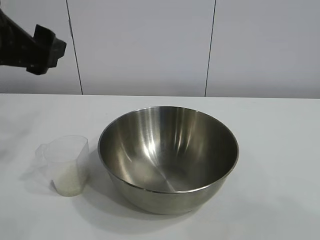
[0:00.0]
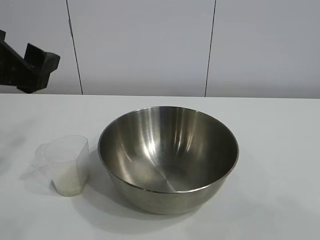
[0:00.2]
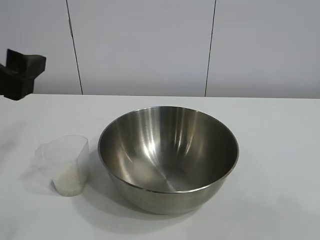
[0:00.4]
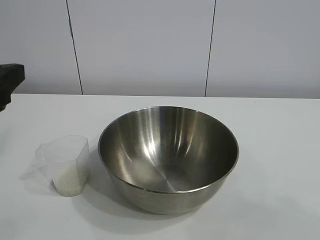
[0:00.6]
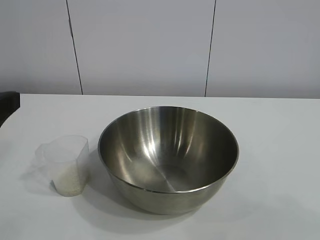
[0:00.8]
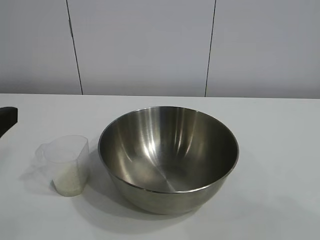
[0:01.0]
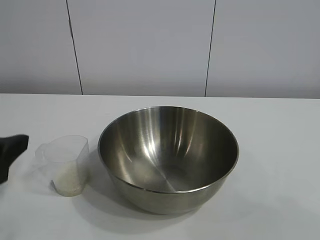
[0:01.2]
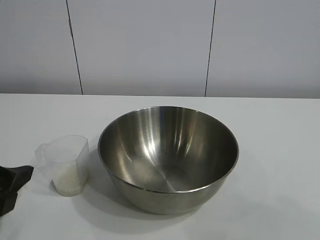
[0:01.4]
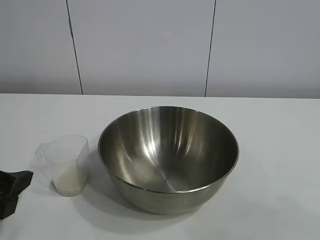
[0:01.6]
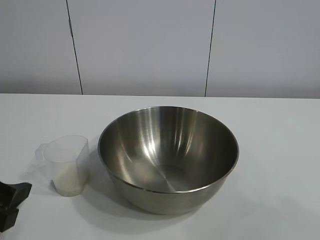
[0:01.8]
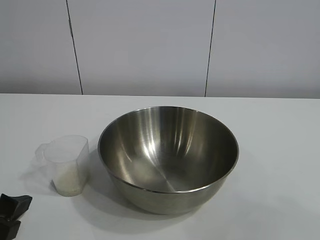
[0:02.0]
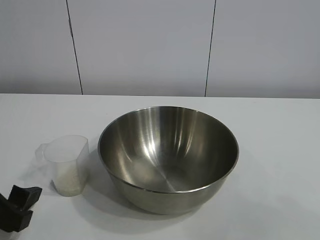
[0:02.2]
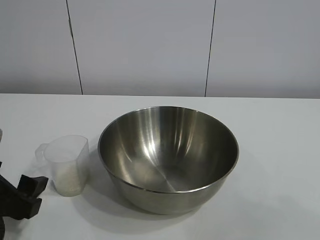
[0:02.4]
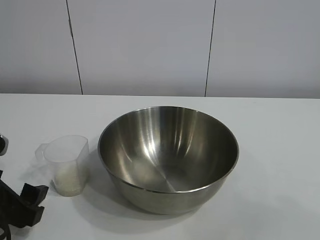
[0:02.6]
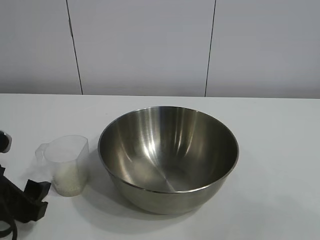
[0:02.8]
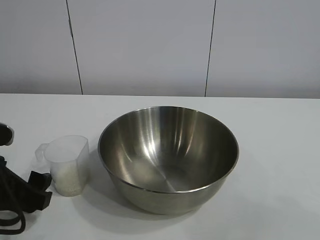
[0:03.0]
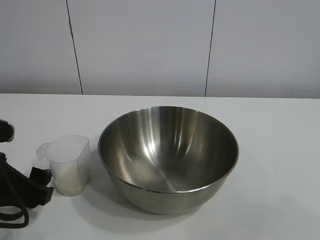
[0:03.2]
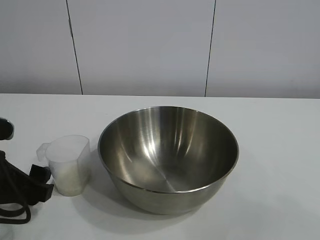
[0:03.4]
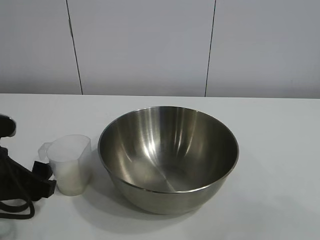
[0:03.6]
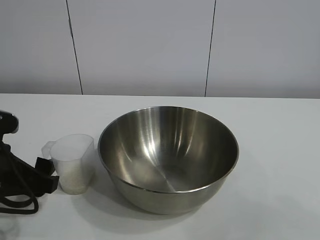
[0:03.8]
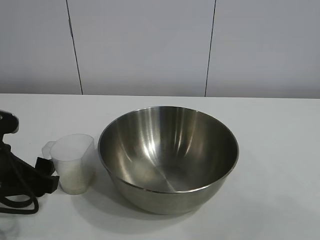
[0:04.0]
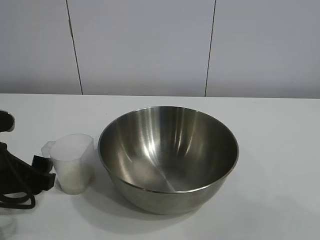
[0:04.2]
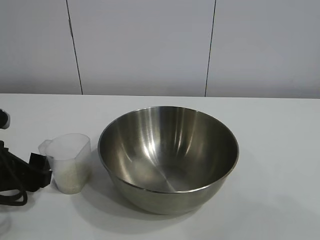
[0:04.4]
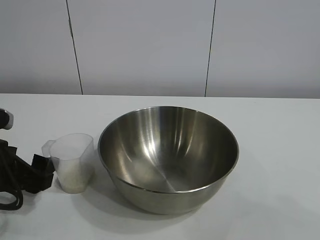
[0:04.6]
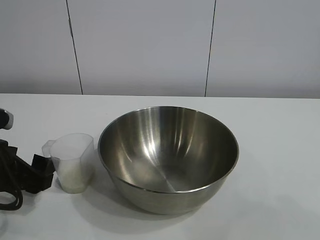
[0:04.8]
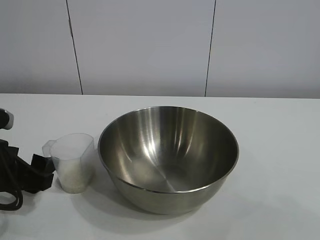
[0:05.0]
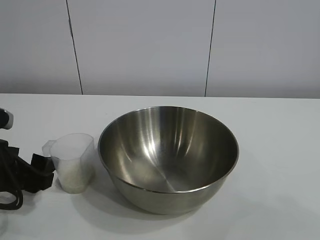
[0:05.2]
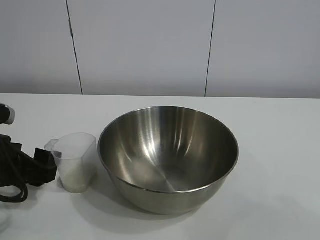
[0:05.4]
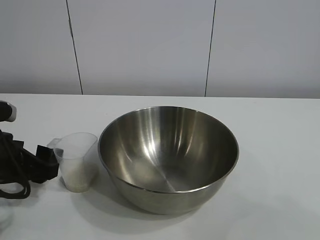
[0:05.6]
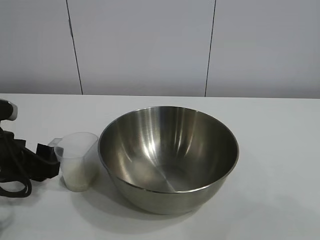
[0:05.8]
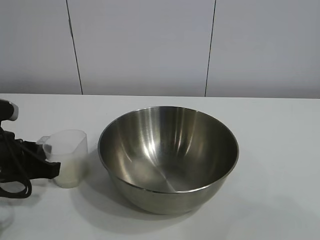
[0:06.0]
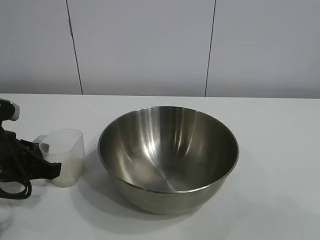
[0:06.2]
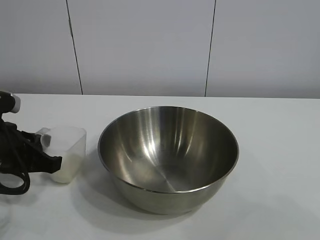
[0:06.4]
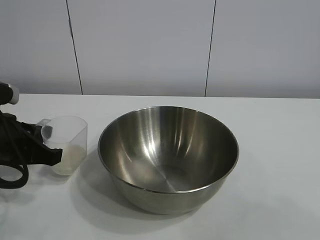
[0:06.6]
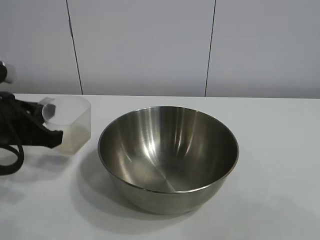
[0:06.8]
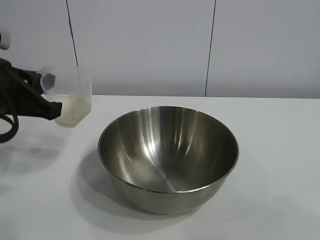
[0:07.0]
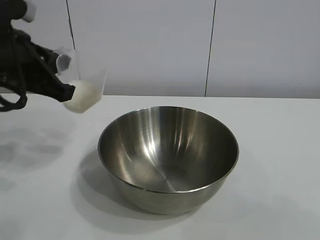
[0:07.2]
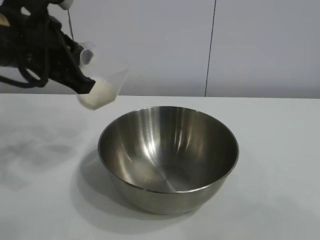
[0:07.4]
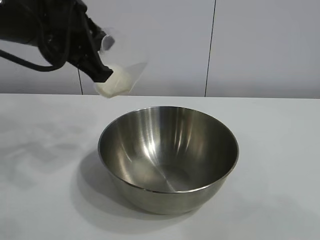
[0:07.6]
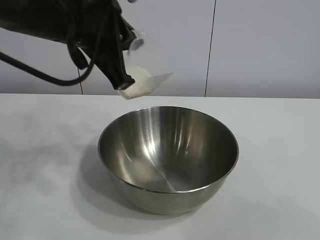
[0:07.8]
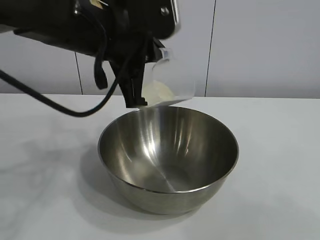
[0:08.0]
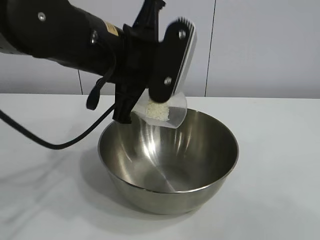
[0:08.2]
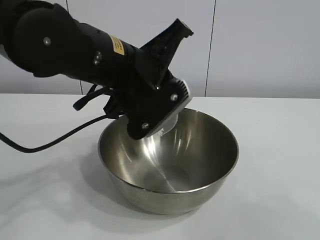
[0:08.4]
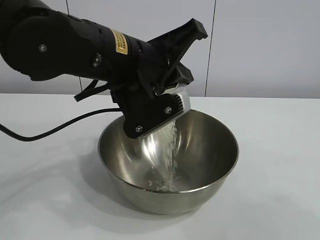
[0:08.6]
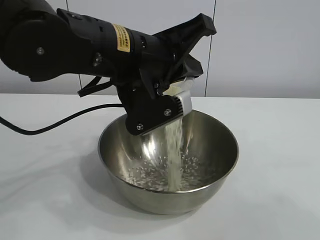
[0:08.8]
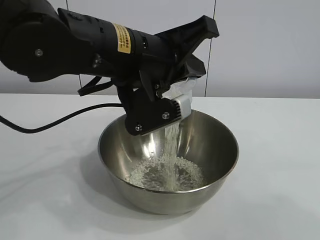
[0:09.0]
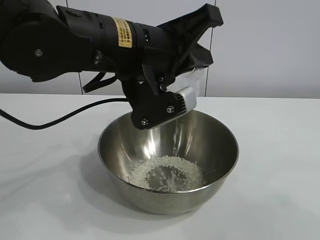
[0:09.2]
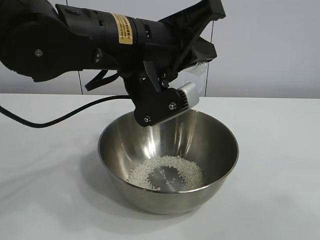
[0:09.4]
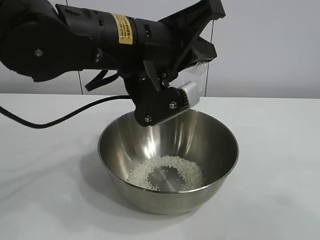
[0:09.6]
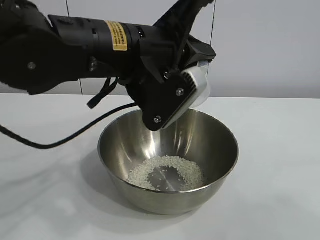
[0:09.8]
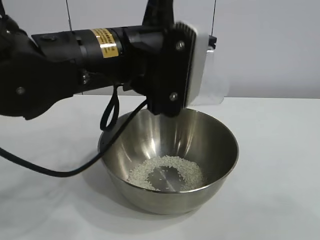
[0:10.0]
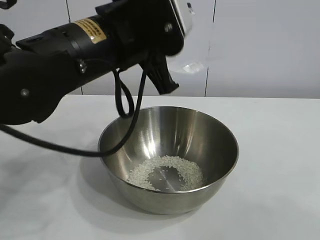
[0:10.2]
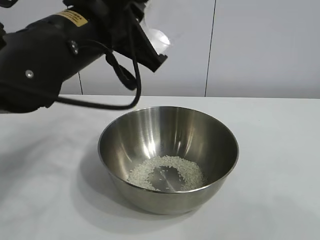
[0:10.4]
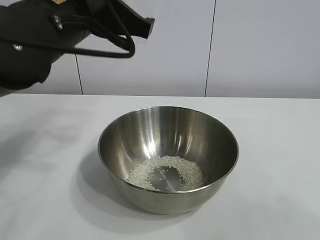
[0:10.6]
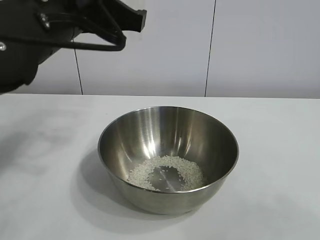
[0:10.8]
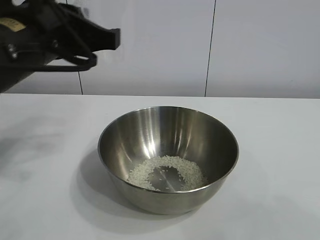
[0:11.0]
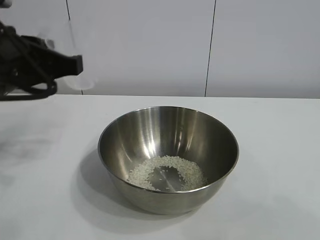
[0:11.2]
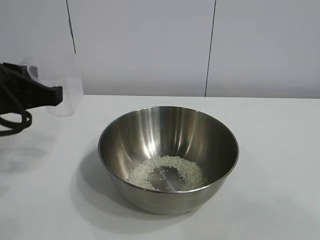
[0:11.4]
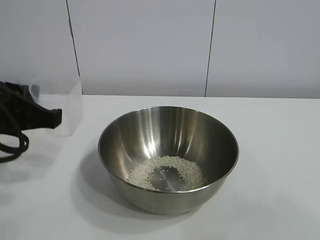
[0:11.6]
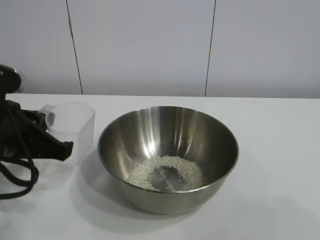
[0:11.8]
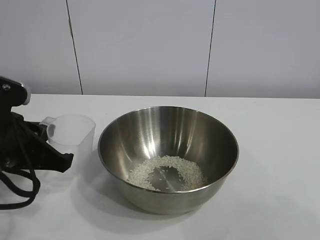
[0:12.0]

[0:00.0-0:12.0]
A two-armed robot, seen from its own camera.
Task of the whole recording: the right gripper grasp the rice container and place it in the center of the table, the left gripper grasp the rice scoop and pour the rice into the rice container.
Step, 0:00.0 to 0:06.2: Grasp the cup with rice in it with left gripper.
Step, 0:06.4 to 0:09.6: Pour the rice from the cup into the bowl with the left gripper.

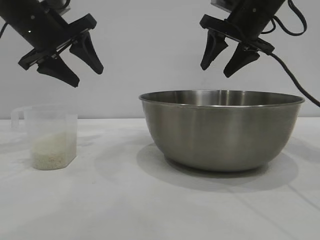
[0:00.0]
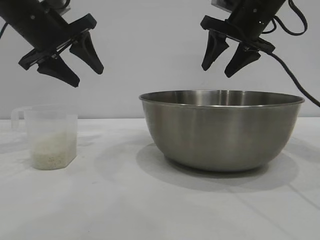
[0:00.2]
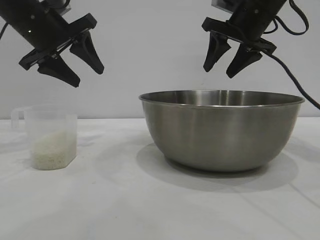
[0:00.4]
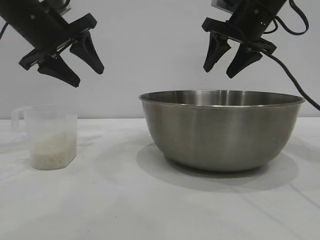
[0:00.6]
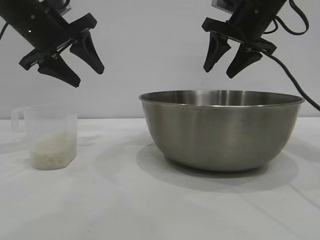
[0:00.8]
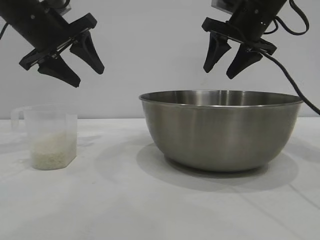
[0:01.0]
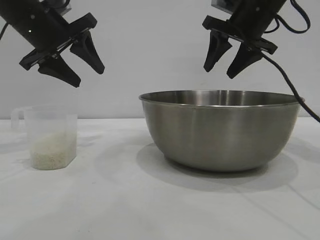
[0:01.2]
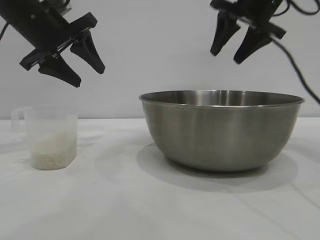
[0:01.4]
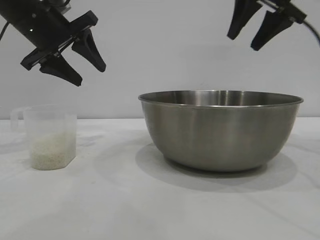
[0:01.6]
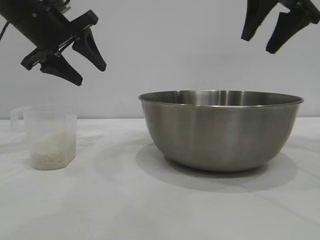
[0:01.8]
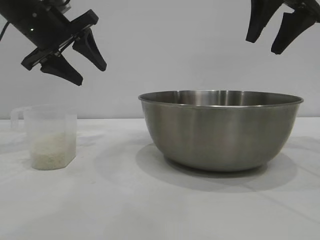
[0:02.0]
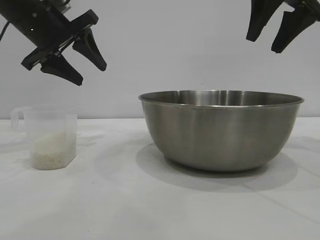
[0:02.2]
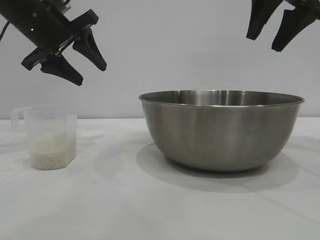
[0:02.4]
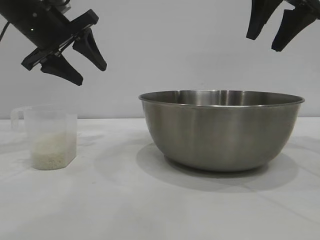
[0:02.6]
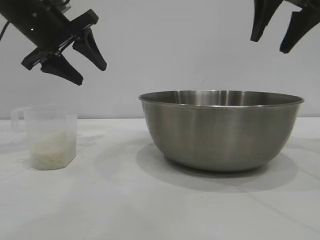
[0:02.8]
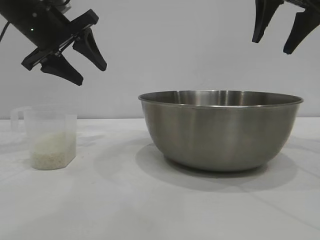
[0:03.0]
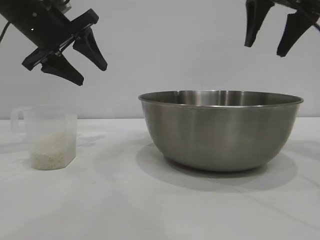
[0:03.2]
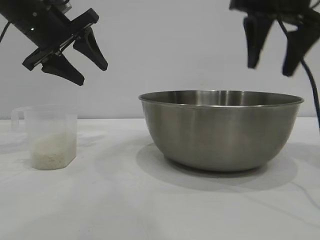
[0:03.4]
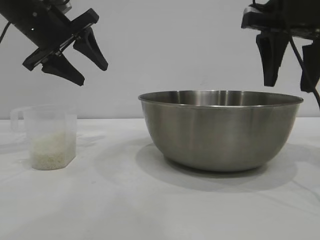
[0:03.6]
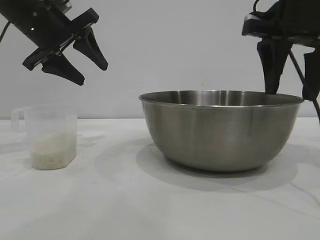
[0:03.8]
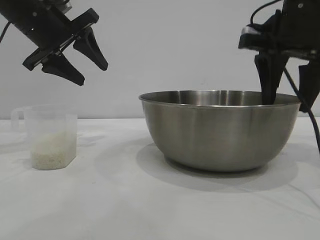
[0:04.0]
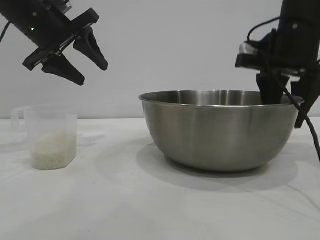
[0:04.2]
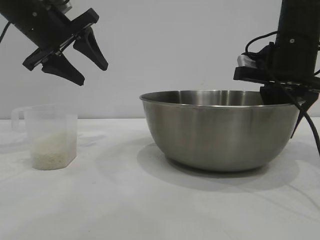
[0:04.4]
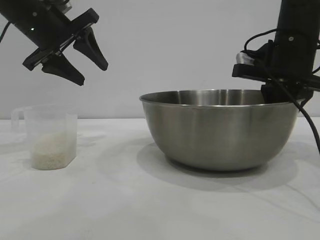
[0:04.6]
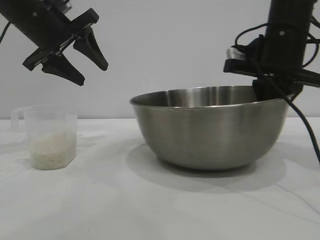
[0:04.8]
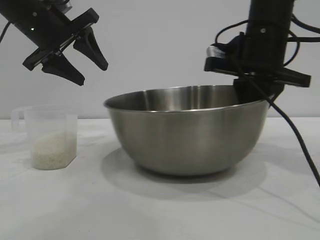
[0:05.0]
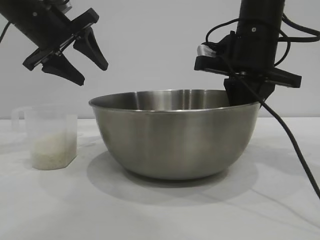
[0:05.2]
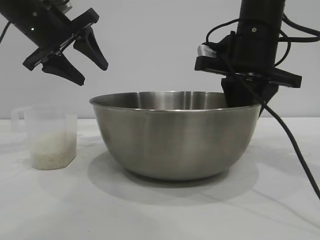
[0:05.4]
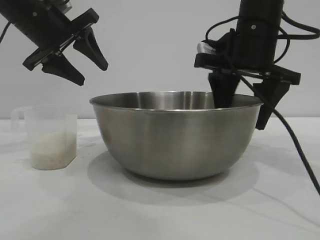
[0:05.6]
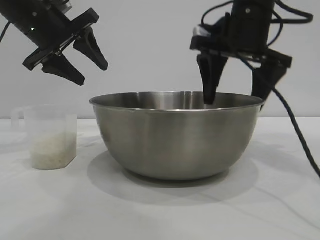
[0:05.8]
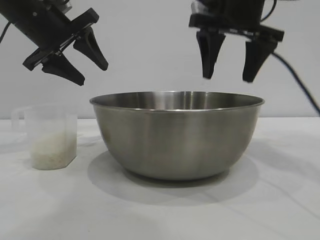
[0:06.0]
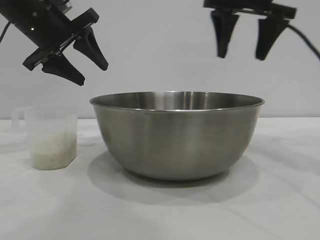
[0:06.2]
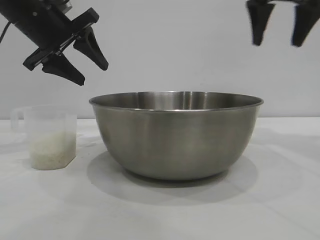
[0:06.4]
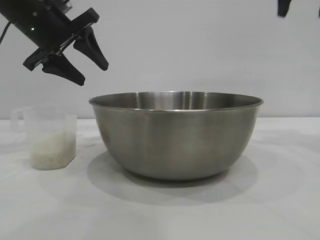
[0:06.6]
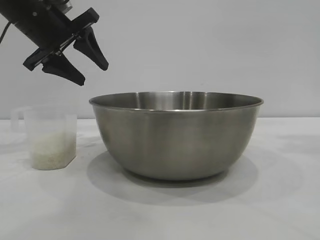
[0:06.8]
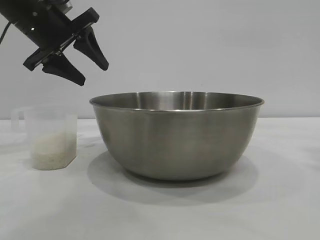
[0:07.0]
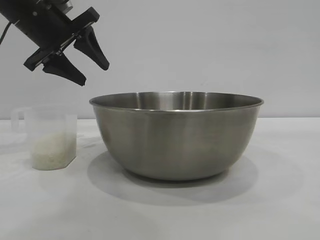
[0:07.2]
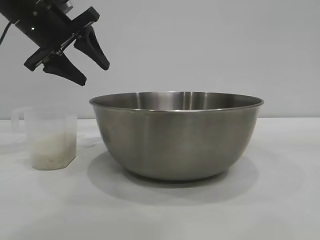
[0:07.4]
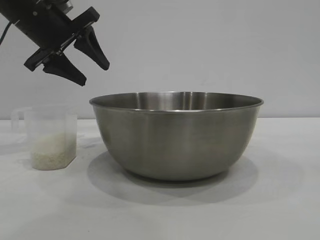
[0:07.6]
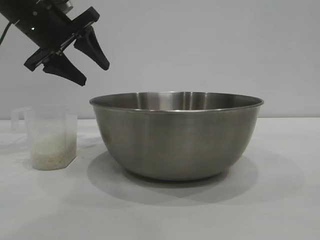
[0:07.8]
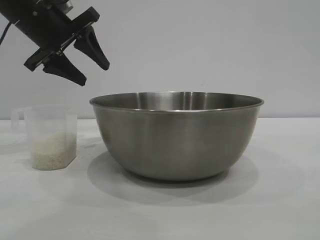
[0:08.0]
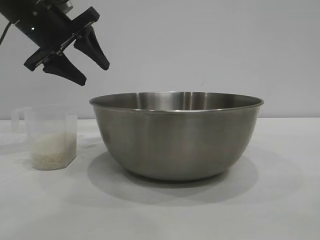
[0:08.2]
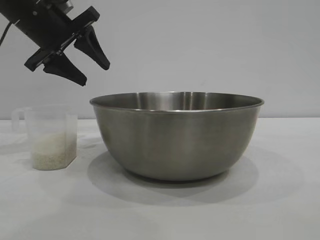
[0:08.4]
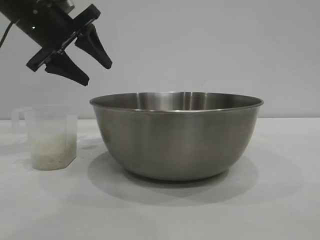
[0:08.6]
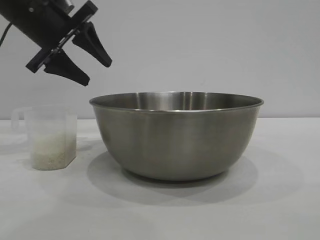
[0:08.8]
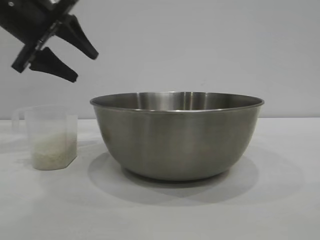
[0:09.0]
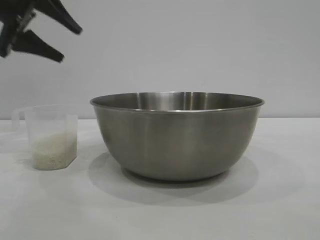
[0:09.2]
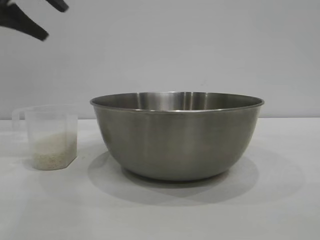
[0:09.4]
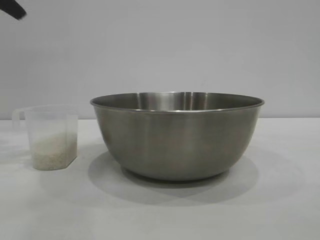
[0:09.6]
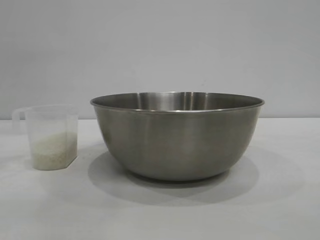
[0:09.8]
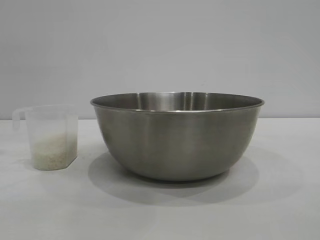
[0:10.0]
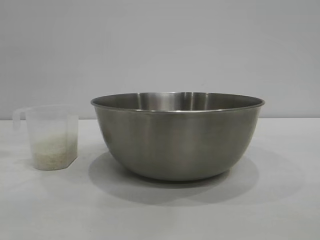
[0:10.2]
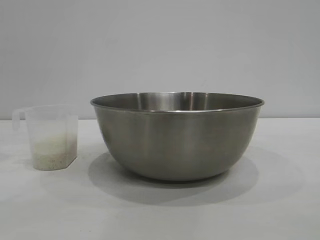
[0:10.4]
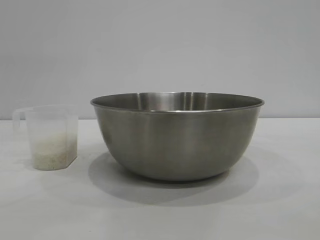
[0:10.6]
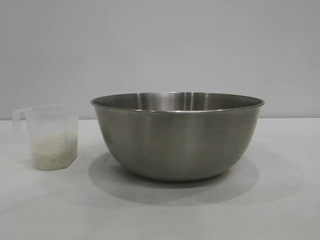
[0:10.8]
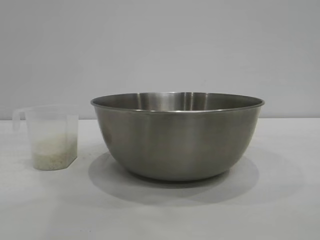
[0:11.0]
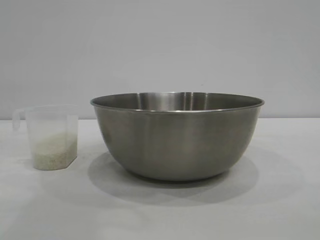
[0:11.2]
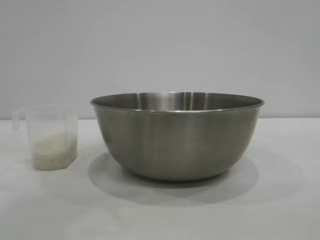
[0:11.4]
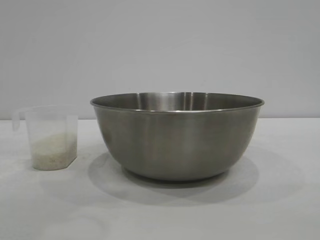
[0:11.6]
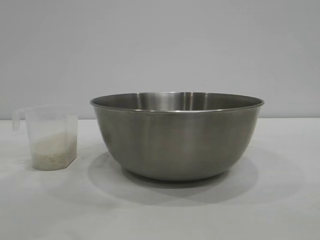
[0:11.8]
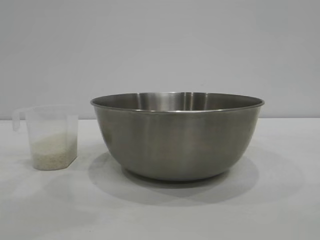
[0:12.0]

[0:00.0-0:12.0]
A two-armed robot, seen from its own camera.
Task of the whole recording: the right gripper grasp the rice container and place it in the center of the table, the left gripper grasp the rice scoop and pour the rice into the rice container.
Step, 0:00.0 to 0:06.6: Move the bowl to the center of view with the right gripper.
